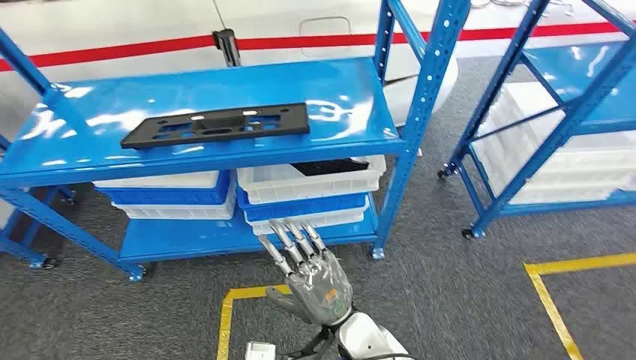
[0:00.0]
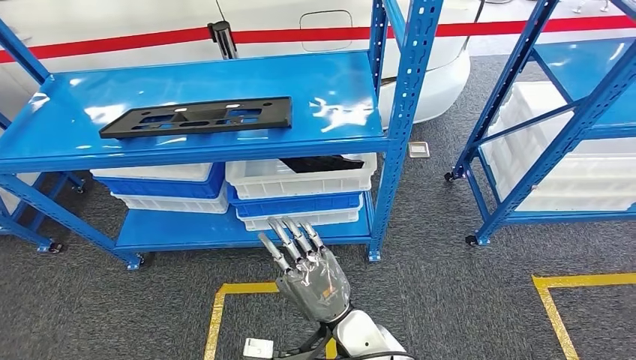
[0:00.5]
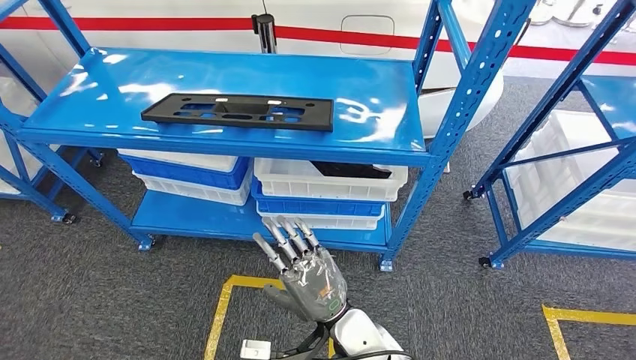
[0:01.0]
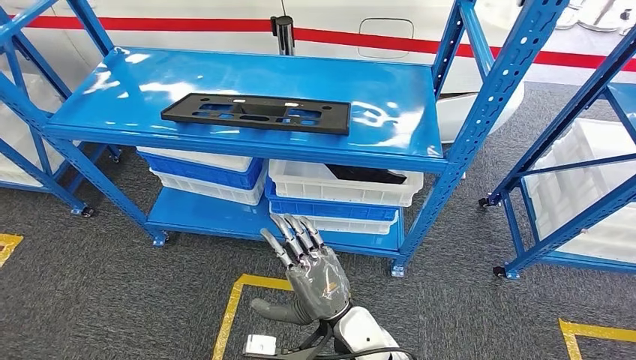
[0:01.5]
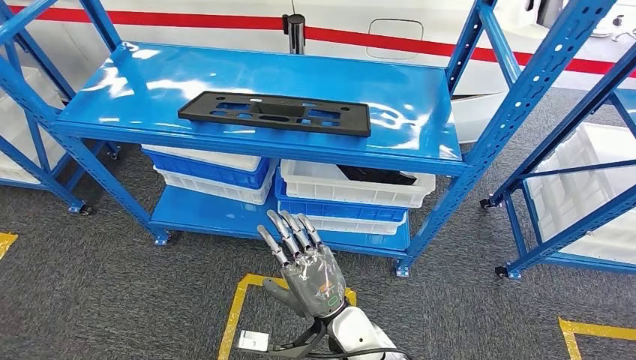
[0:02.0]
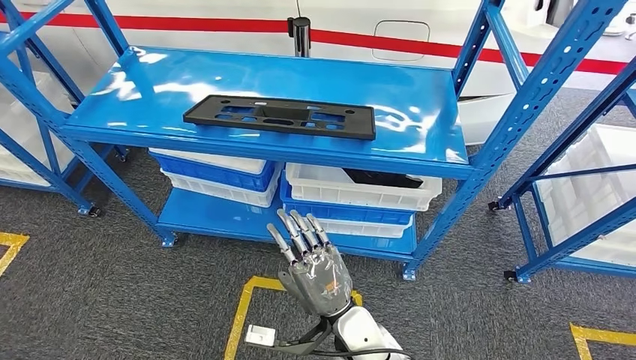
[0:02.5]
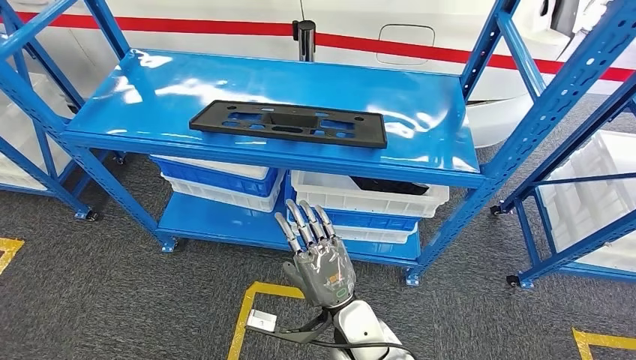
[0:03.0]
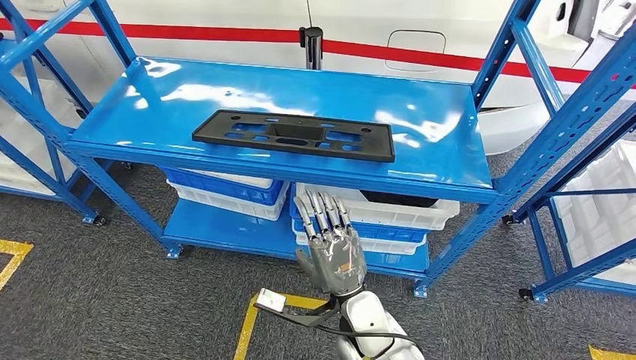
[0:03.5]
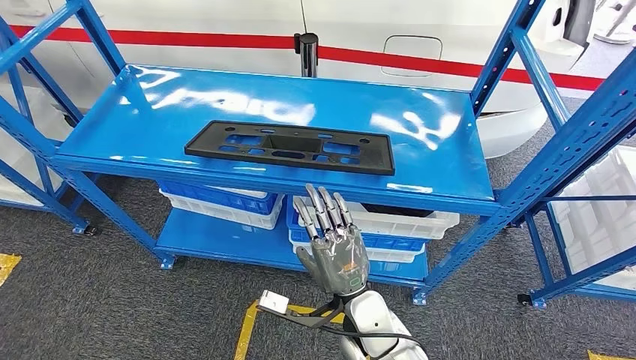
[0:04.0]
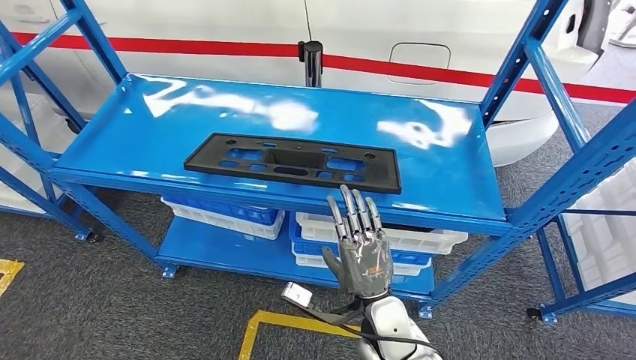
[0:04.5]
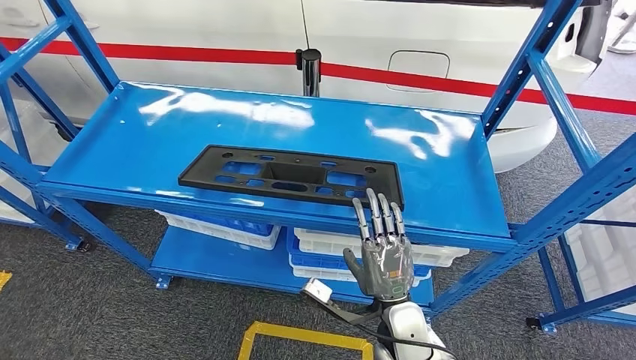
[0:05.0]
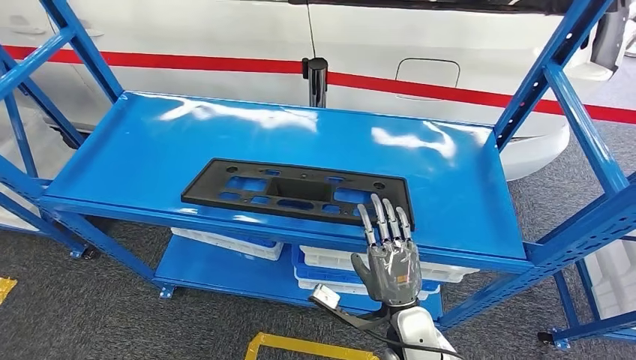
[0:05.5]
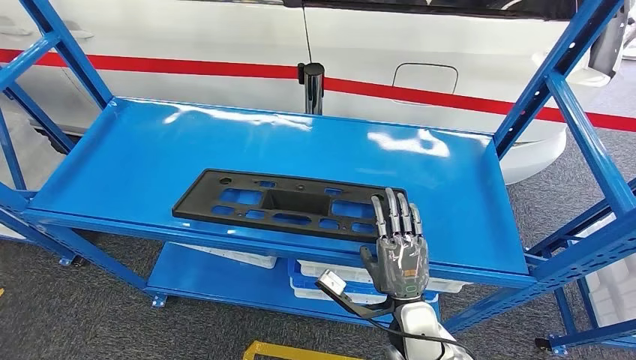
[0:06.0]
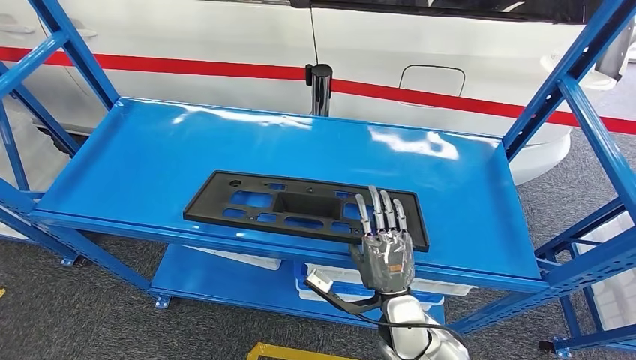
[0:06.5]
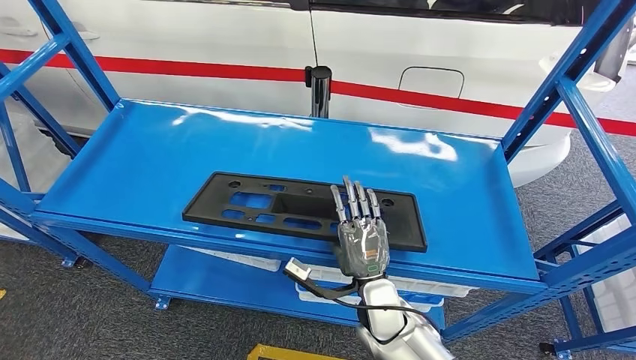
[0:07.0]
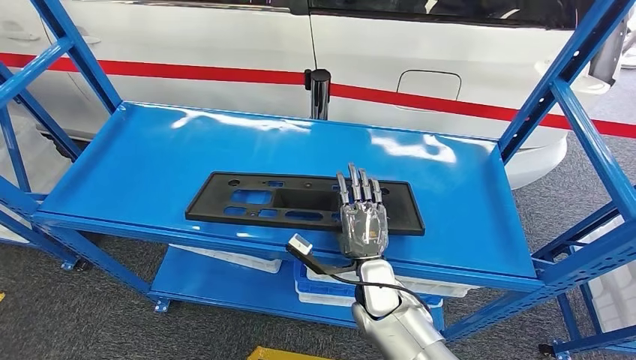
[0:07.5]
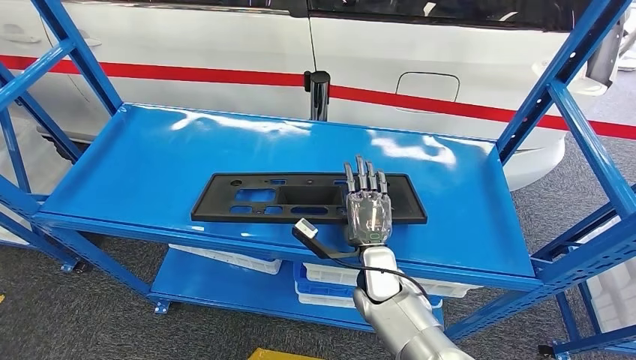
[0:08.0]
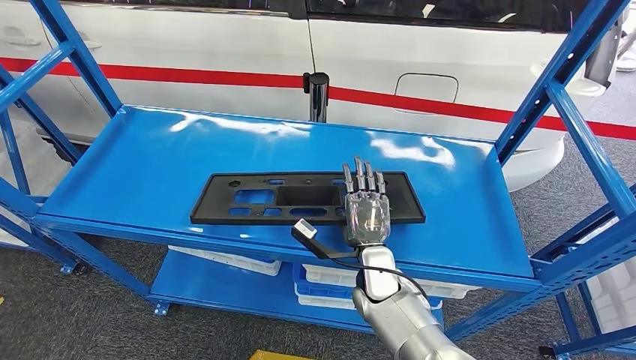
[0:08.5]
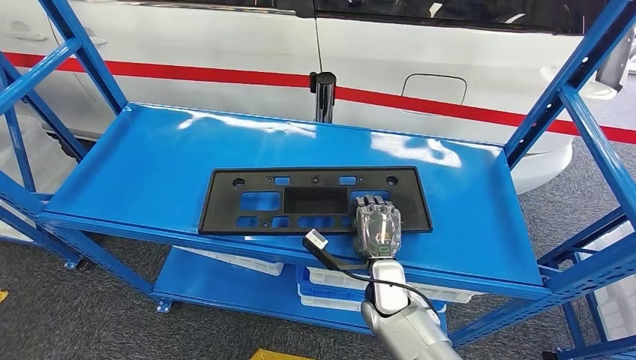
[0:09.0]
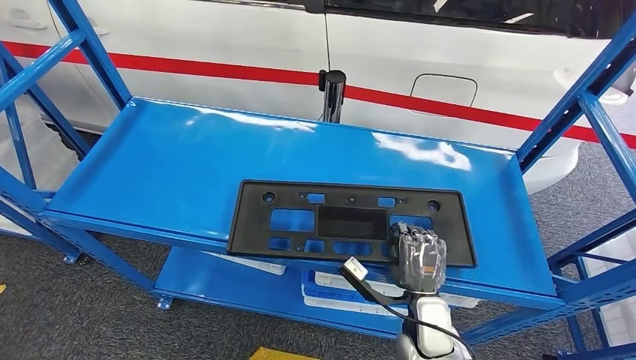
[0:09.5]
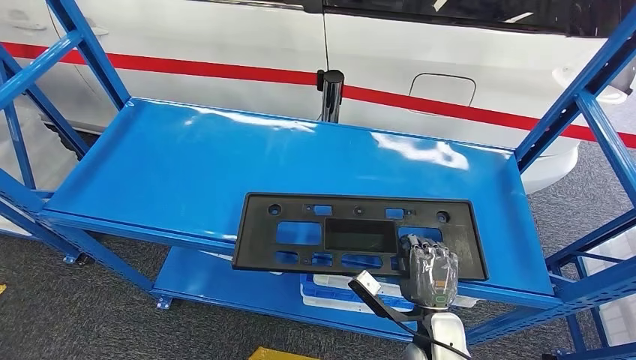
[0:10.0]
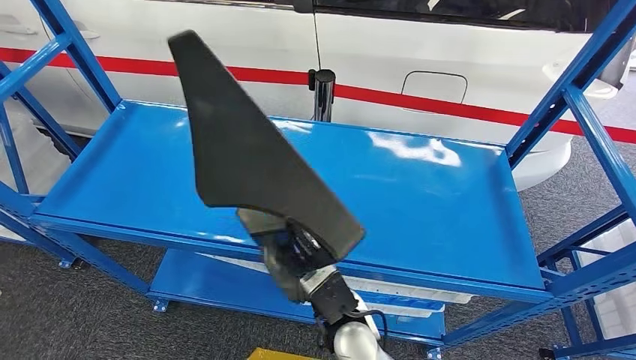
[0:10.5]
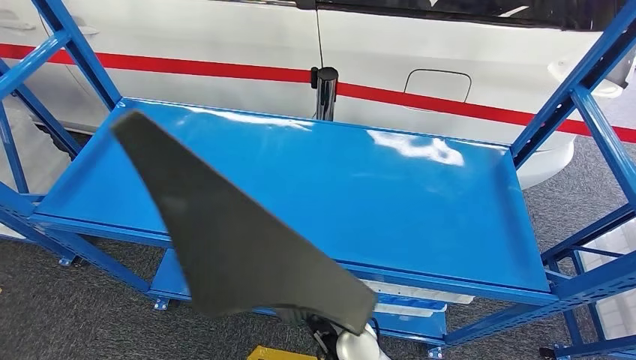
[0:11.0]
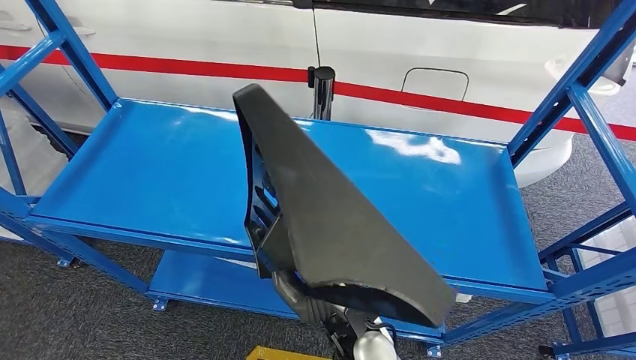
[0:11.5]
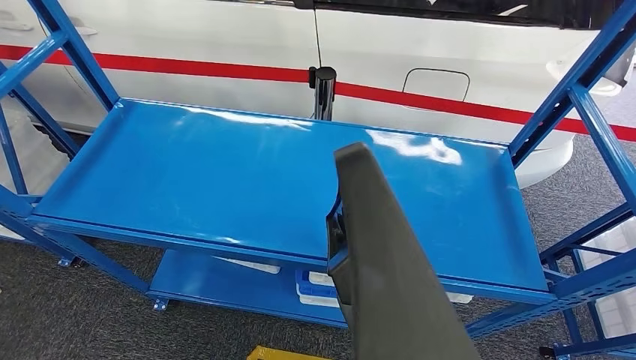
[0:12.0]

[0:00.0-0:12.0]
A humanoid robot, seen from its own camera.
Step, 0:00.0 to 0:12.0: Pick up the large material from the shelf.

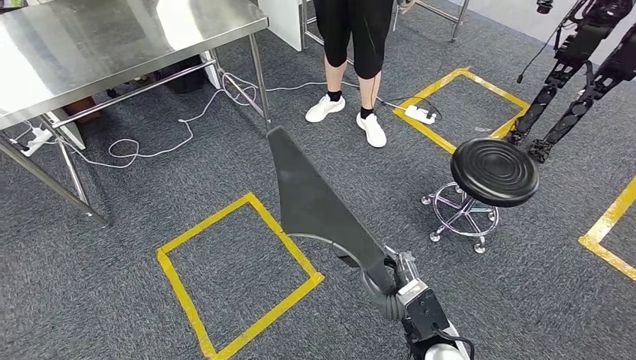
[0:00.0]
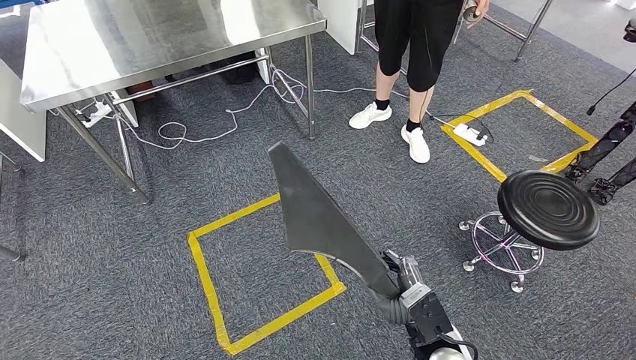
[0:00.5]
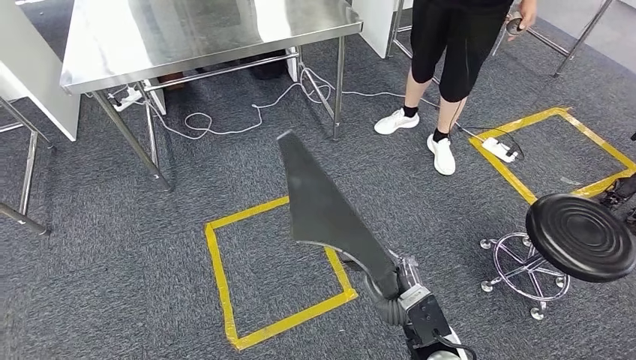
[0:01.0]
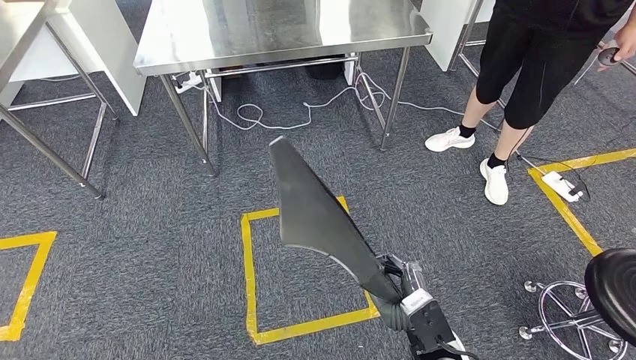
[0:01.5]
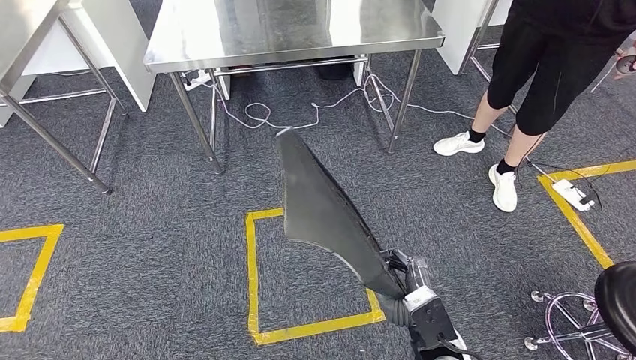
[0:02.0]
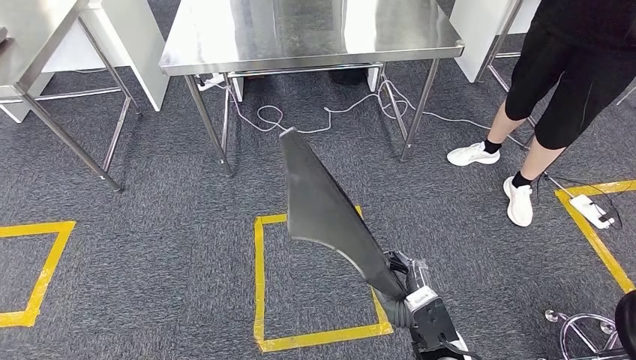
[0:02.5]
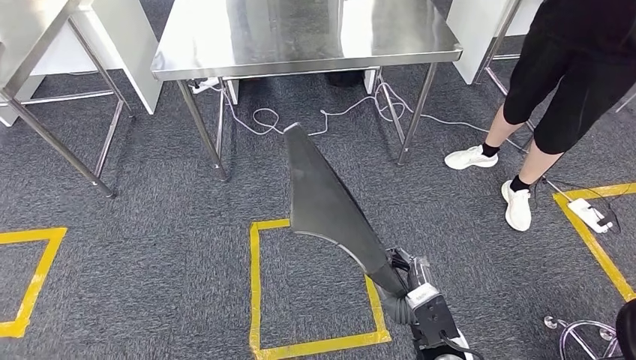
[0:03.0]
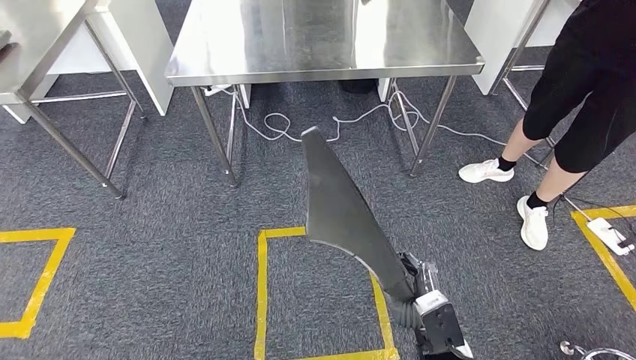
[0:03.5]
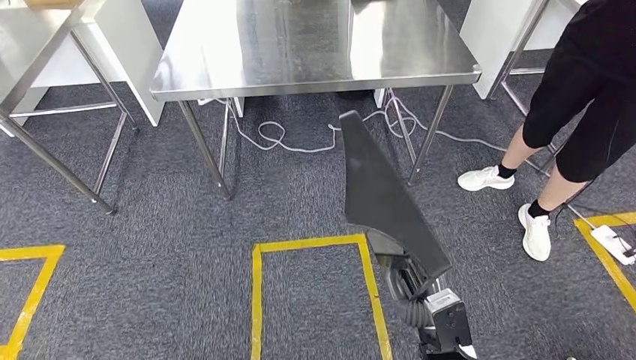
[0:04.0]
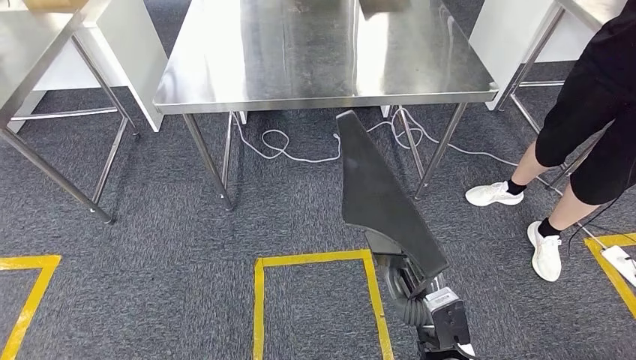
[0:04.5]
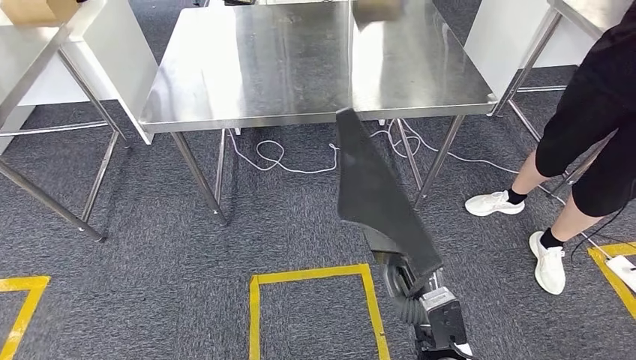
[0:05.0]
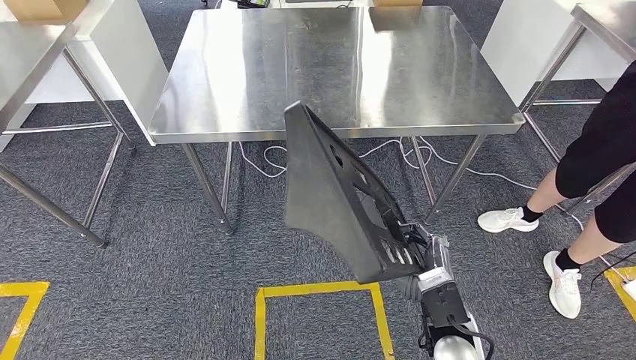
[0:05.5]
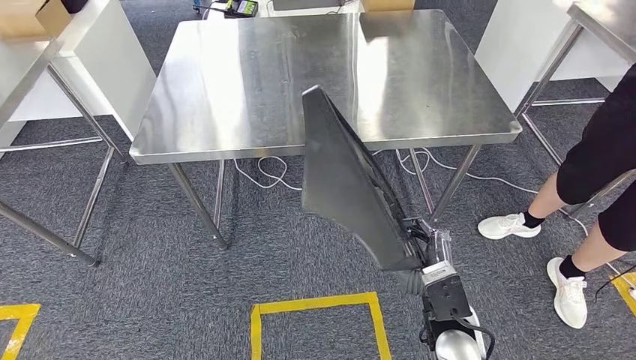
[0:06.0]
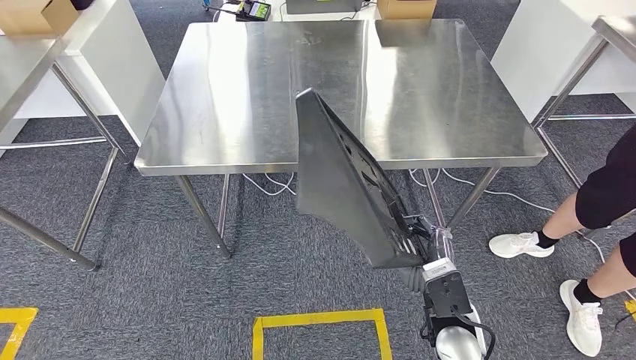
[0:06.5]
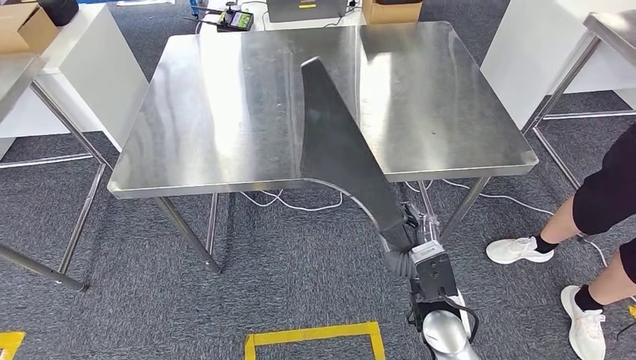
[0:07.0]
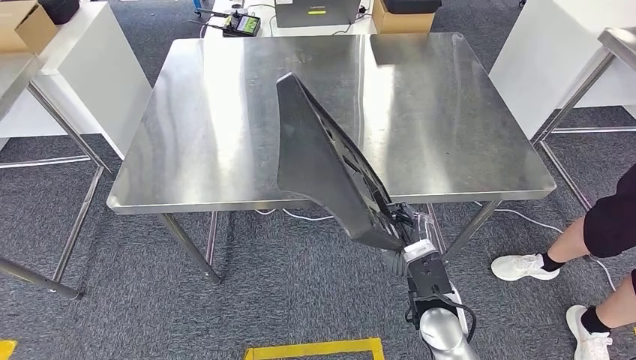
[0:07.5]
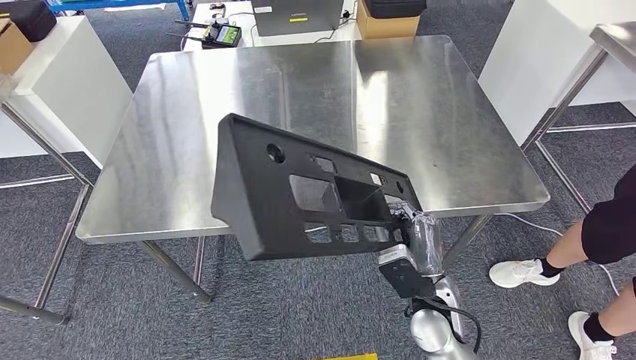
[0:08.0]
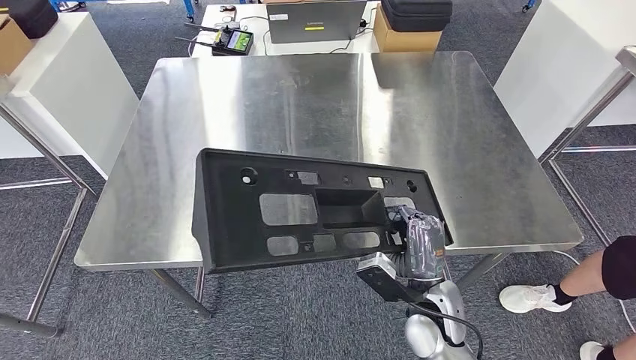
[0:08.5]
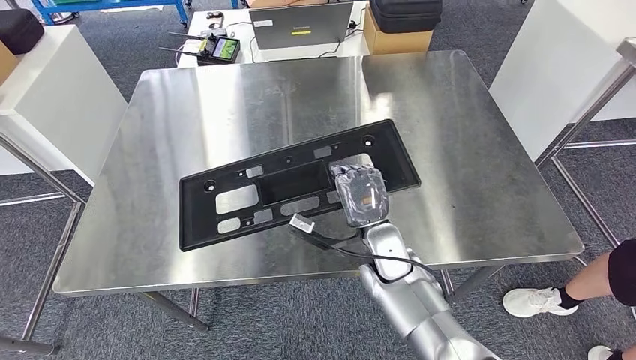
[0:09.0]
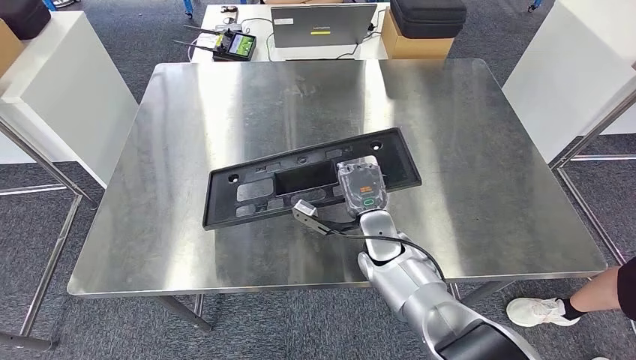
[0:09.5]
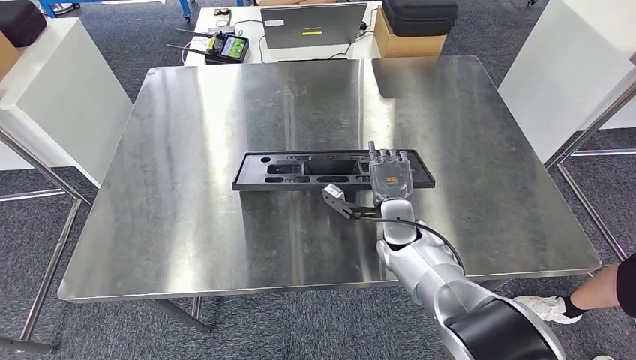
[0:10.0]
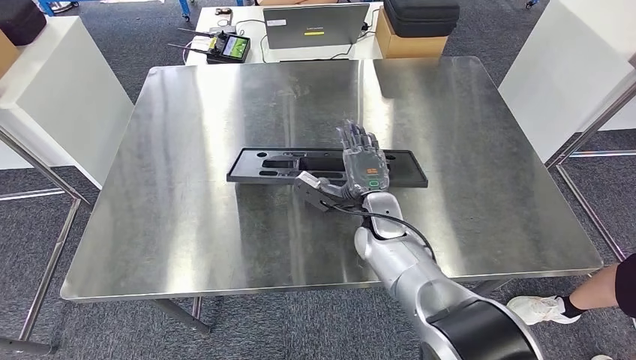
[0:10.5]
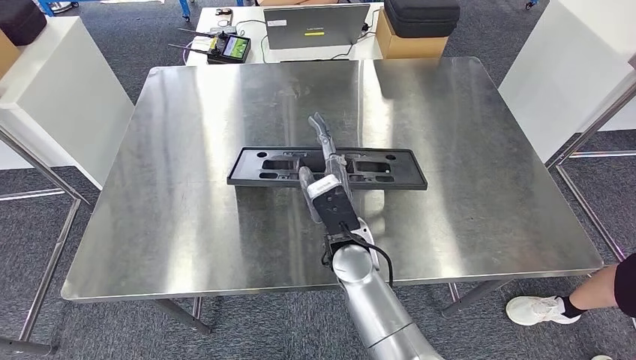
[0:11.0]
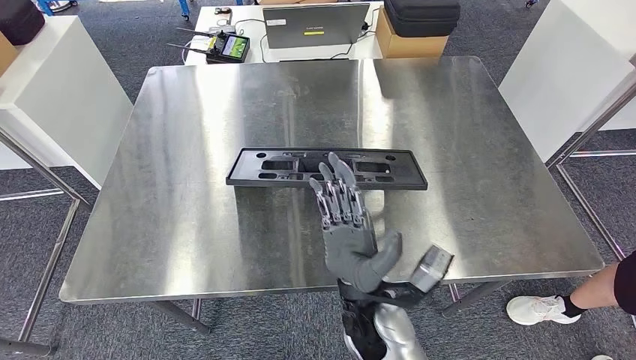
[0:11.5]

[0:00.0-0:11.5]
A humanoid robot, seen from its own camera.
Step, 0:00.0 to 0:05.5: Move the large material to the front of the workbench.
